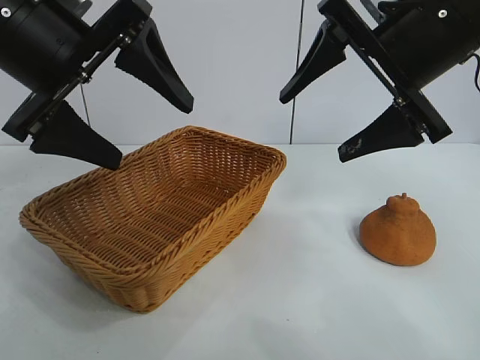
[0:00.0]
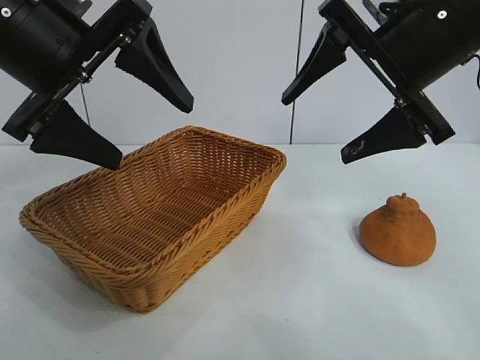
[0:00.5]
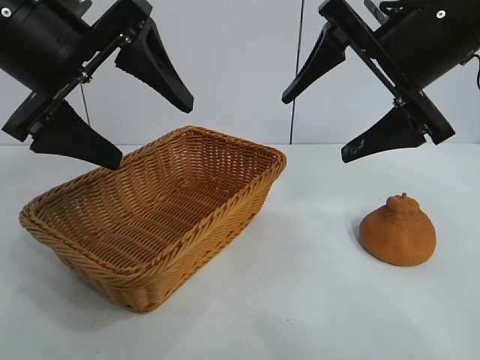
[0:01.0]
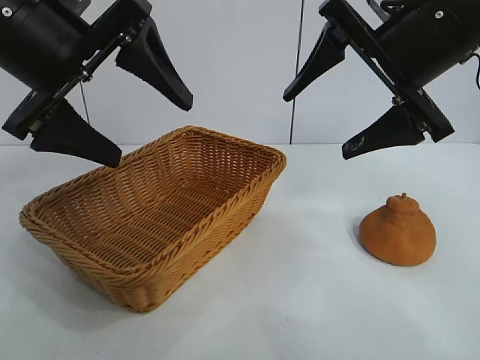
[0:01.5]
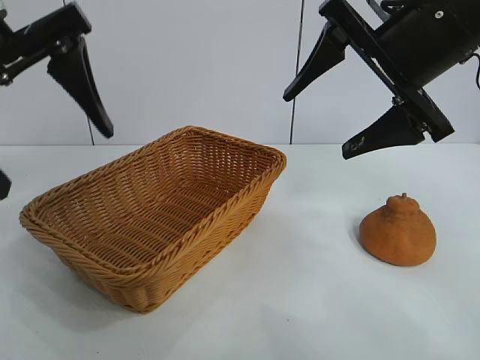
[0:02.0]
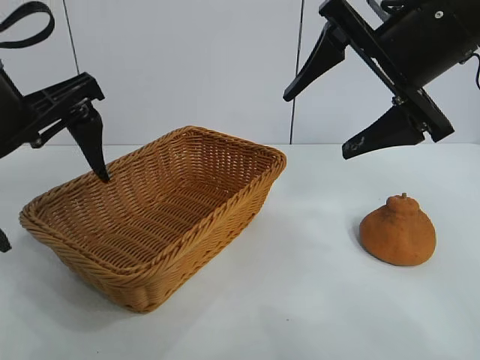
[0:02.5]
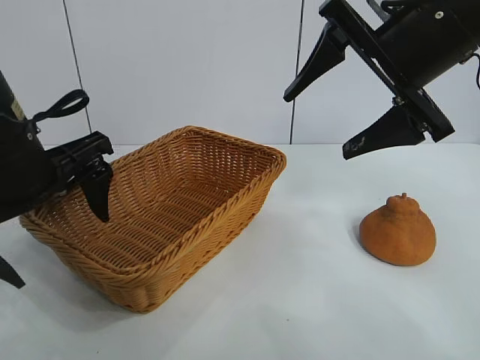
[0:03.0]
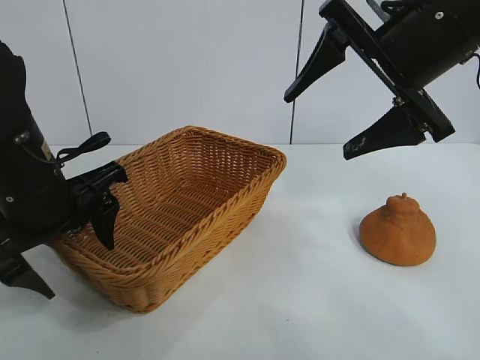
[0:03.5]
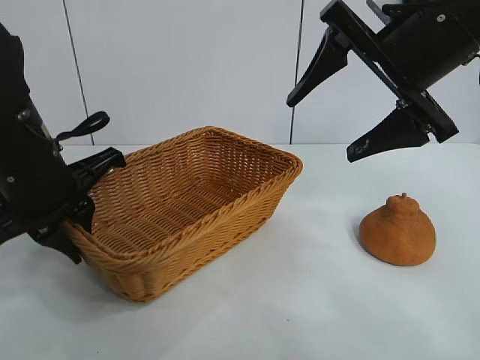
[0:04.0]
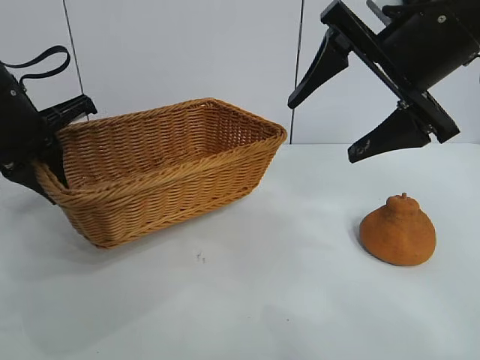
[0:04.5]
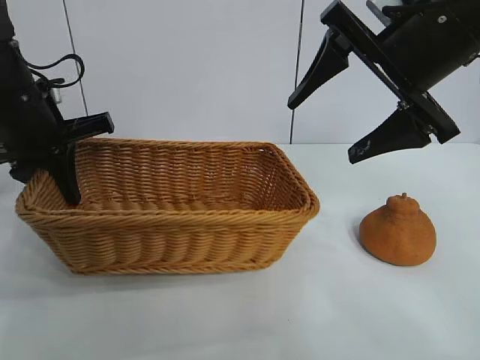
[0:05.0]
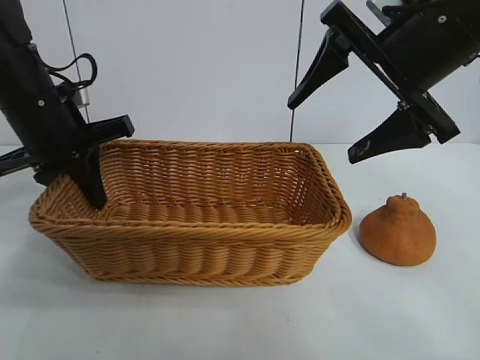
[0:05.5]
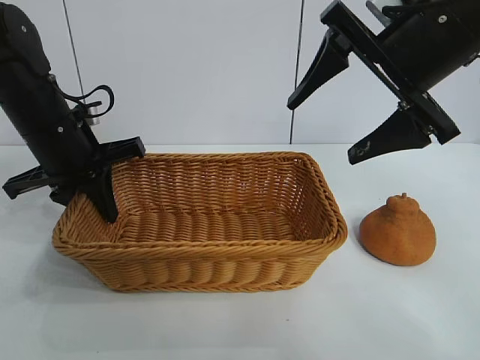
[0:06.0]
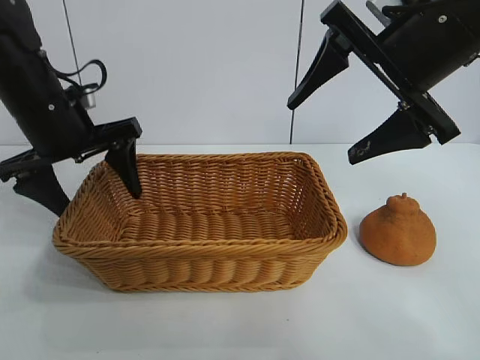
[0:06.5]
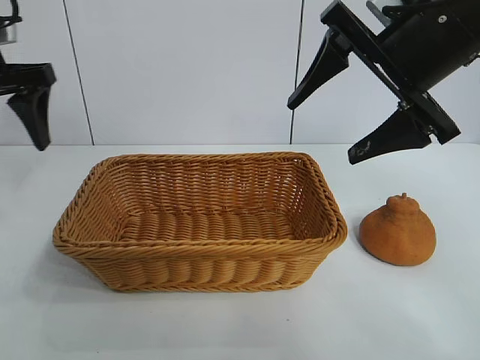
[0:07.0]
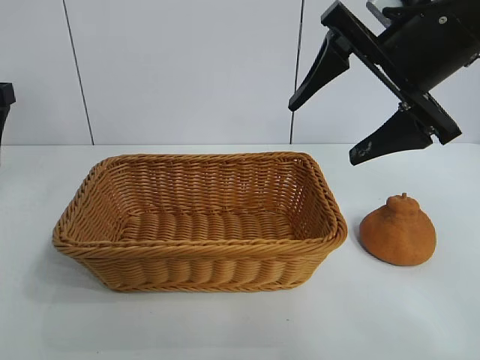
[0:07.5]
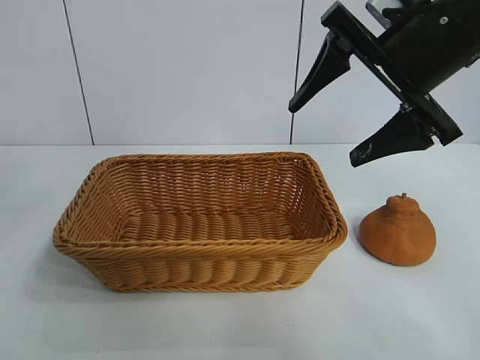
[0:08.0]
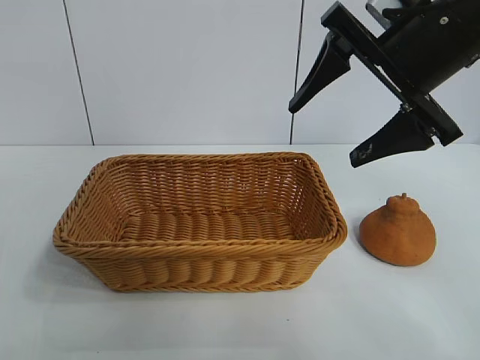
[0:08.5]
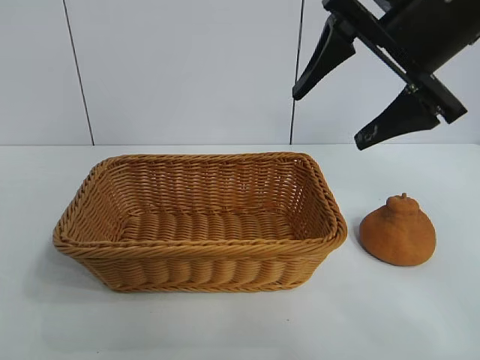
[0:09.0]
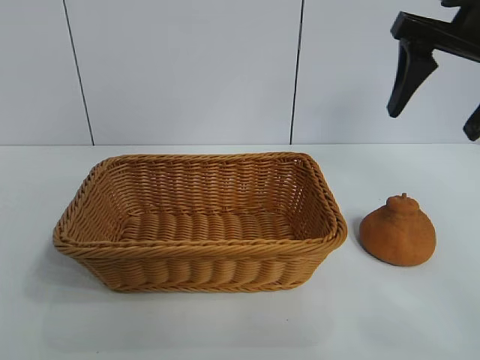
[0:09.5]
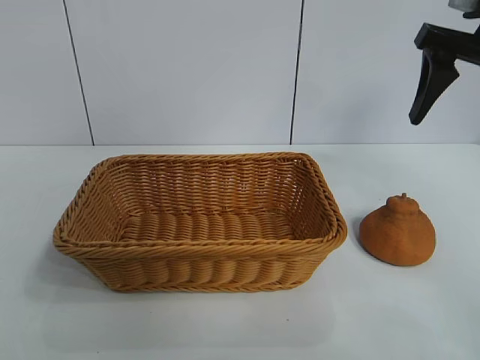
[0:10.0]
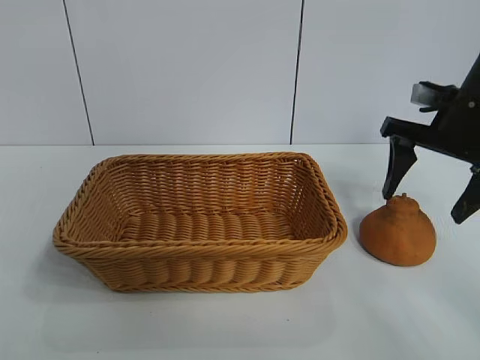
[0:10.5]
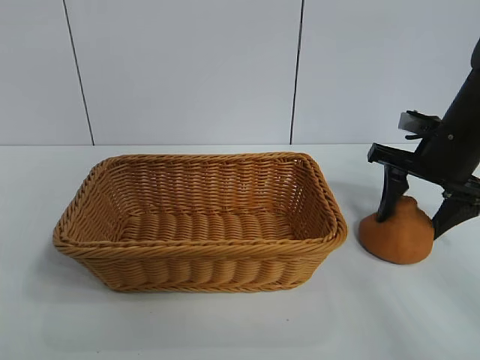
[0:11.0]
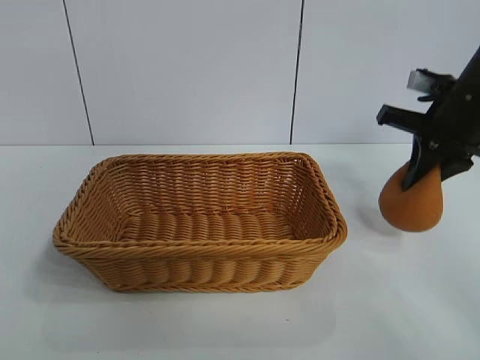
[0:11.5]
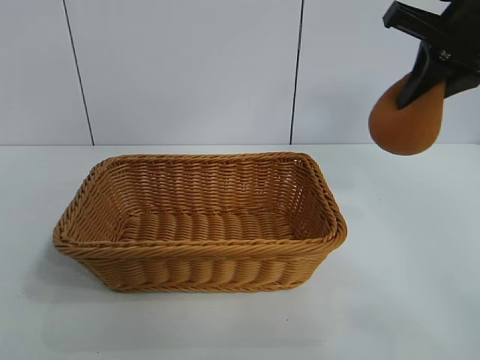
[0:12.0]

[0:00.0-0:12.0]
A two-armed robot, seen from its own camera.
Task of the whole recording: pick up the orange and put it into the basket.
Step, 0:02.0 to 0:03.5: Grasp the basket with left gripper.
Step, 0:04.0 to 0:06.0: Place the basket in the center of view with left gripper.
Step, 0:06.5 to 0:11.0: Grasp the orange with right gripper.

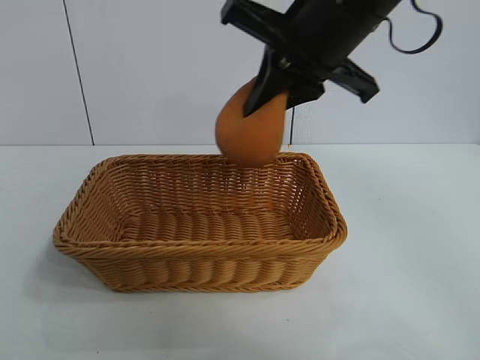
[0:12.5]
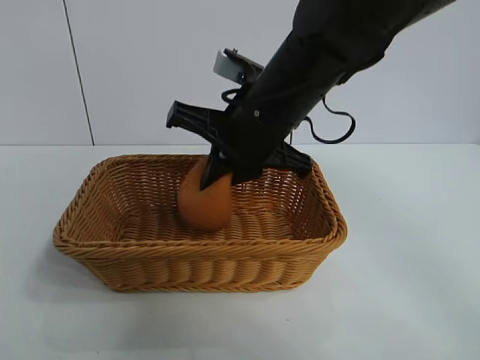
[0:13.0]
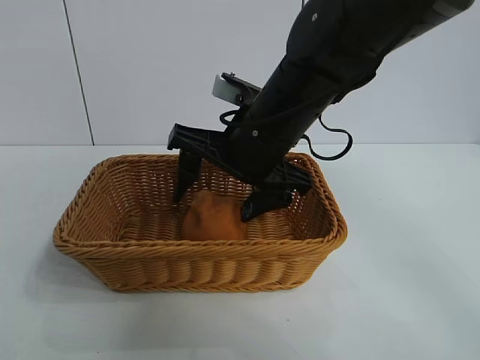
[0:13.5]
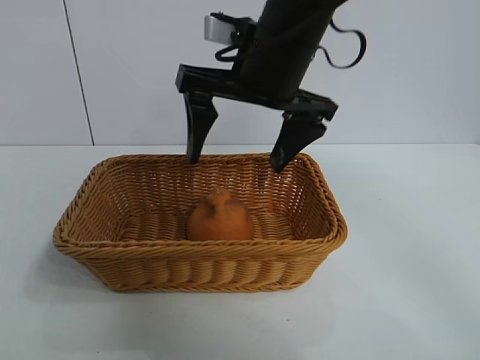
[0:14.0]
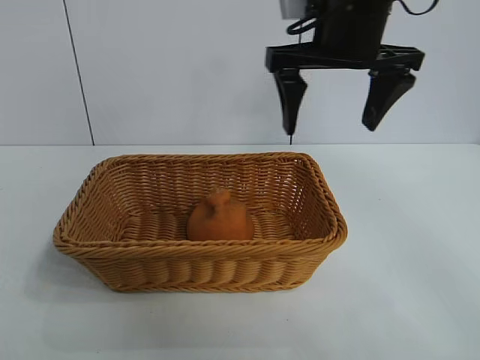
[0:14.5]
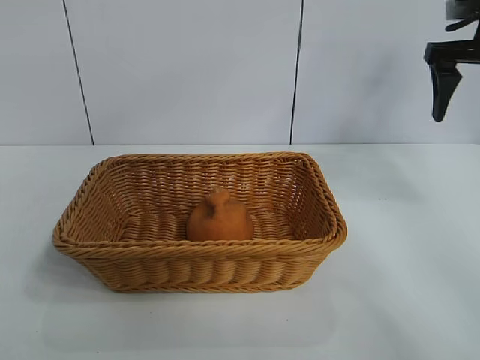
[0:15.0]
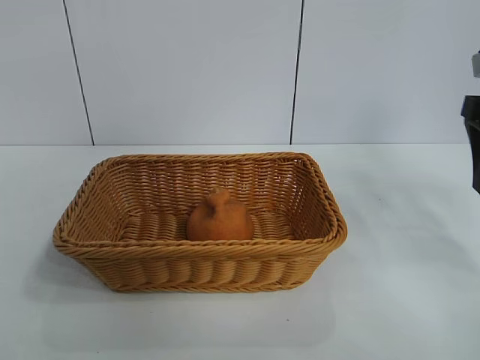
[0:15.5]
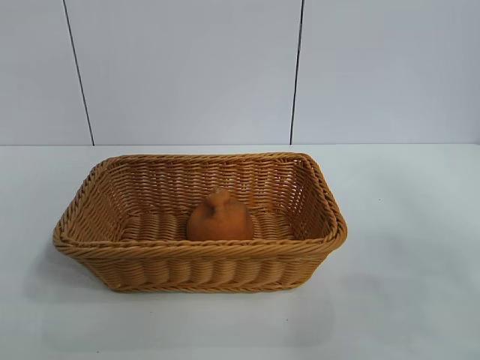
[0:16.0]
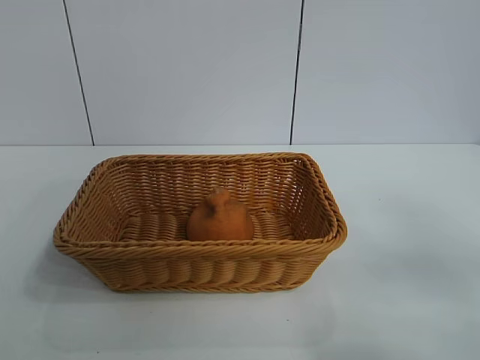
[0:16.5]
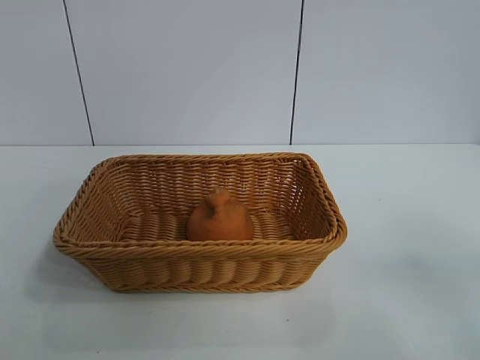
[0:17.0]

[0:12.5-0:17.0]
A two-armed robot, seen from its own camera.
Task of the whole recording: pick up the orange and put it into the basket.
Step, 0:12.5 to 0:13.5: Place the orange in the basket with right gripper.
